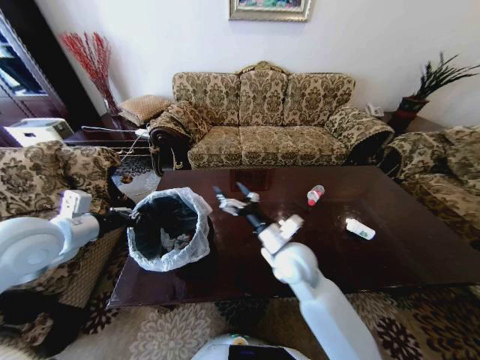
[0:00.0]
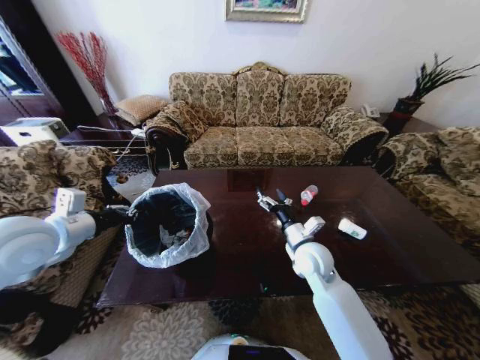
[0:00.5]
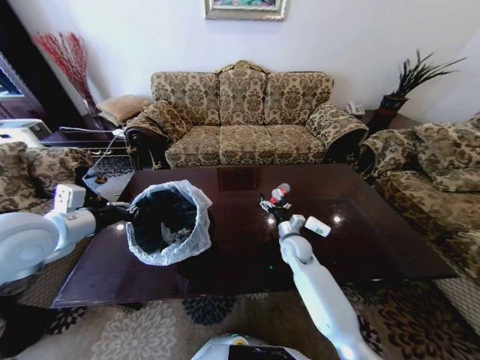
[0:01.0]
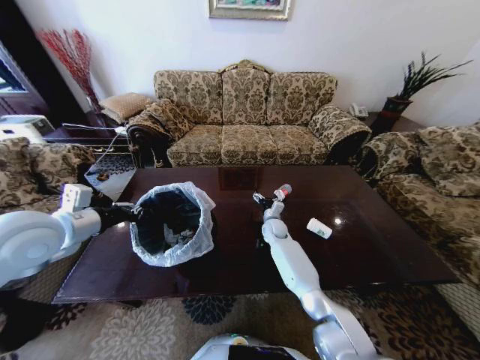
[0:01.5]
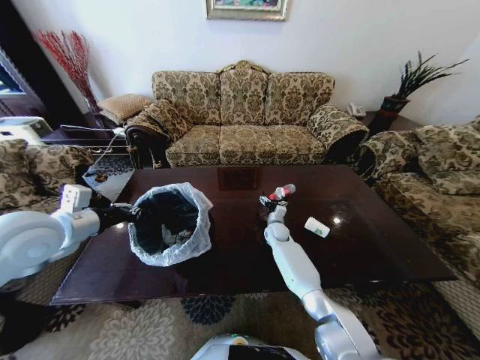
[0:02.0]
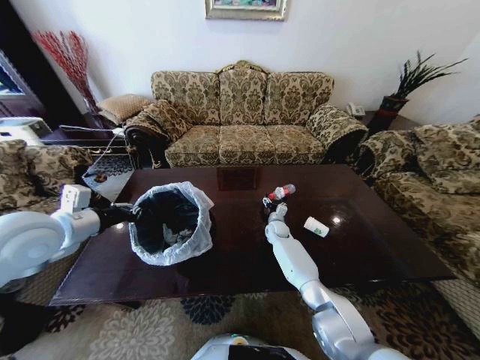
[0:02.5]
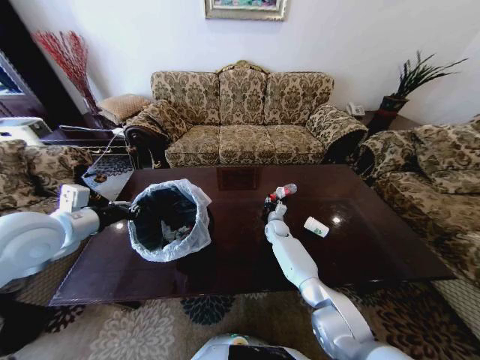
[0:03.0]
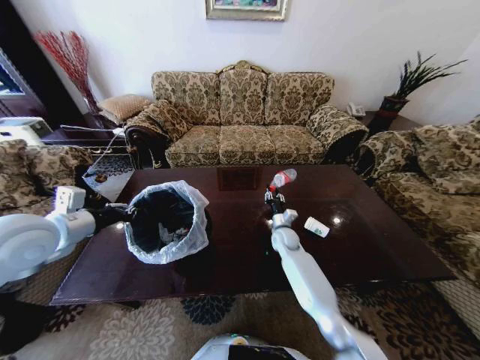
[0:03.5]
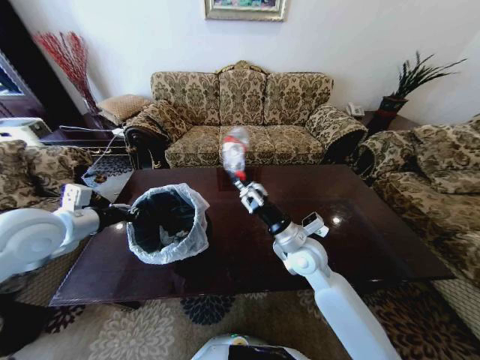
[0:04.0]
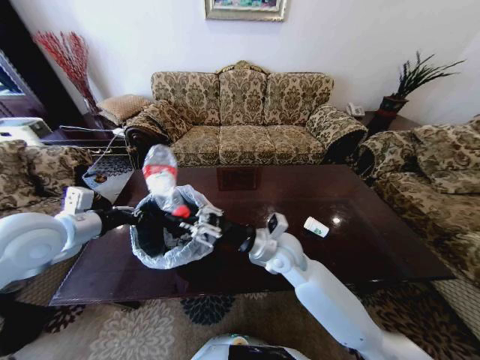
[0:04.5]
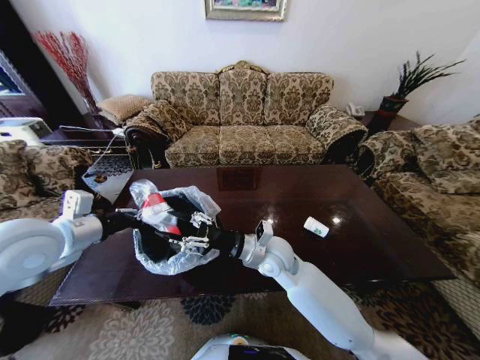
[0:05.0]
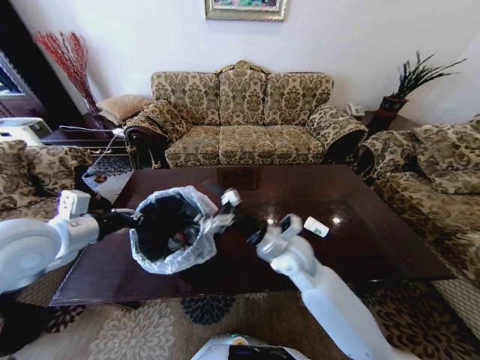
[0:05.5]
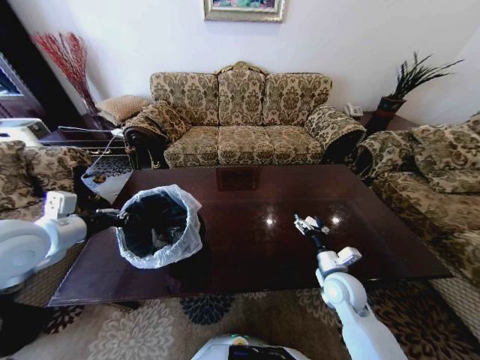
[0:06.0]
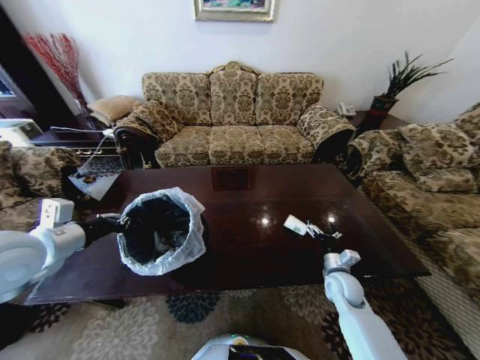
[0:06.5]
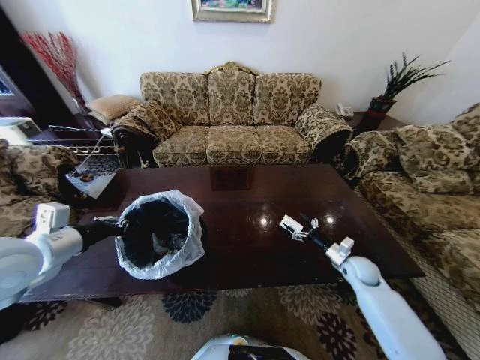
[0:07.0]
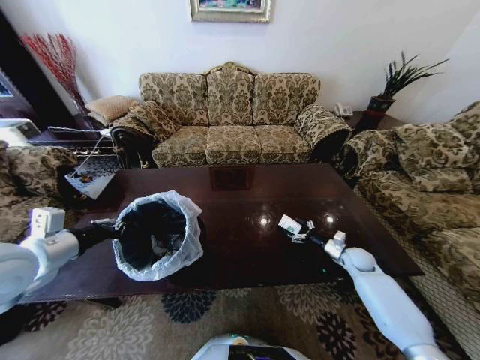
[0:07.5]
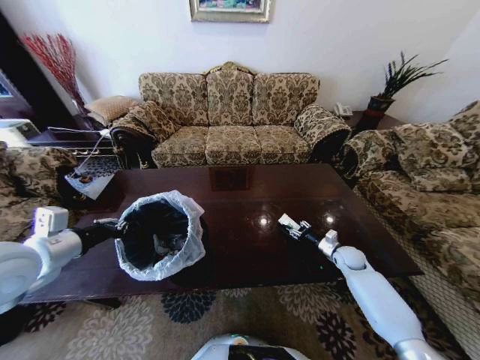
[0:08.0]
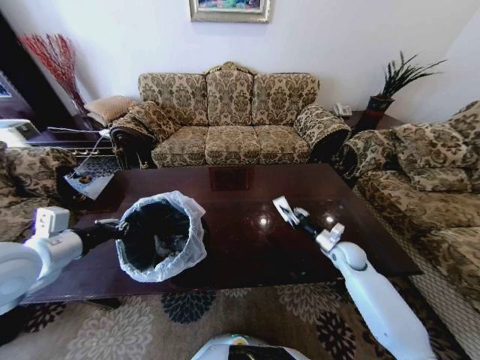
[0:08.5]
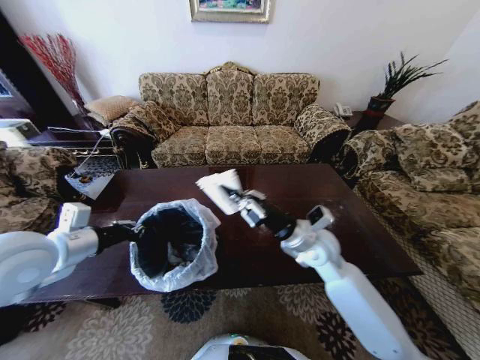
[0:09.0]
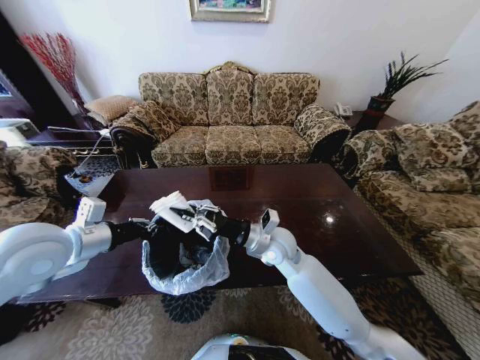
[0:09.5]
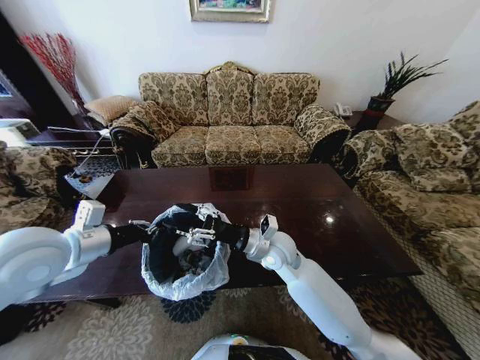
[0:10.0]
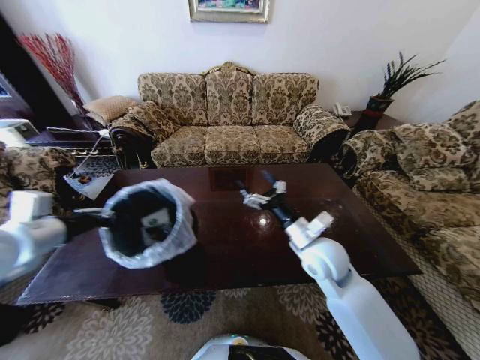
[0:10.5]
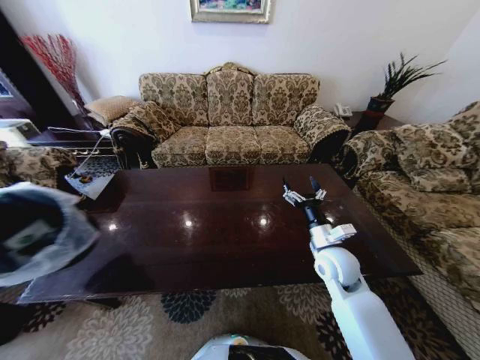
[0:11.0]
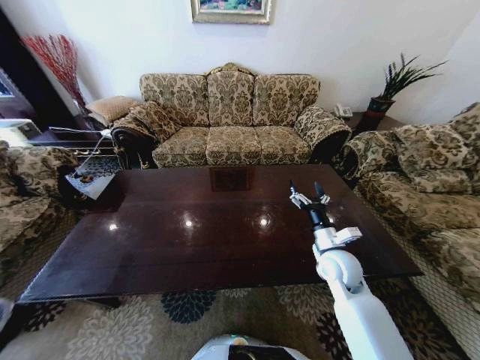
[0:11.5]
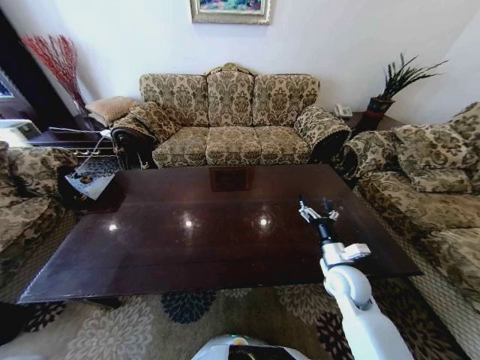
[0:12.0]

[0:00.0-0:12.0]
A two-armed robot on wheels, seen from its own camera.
Task of the whole recording: Move to the front of the table and place the trash on the table into the trash bin.
0:00.0 to 0:02.0: The right gripper goes about 30 cm forward and downward.
0:02.0 to 0:04.0: The right gripper moves backward and upward, some 25 cm, and closes.
0:04.0 to 0:06.0: The right gripper moves to the right and downward, roughly 15 cm, and opens its fingers.
0:06.0 to 0:08.0: The right gripper heads forward, to the right and downward, covering about 20 cm, and closes up.
0:08.0 to 0:10.0: The left gripper ends up about 5 cm from where it was. The right gripper moves to the left and upward, roughly 35 cm, and closes, then reopens.
0:10.0 to 0:12.0: The left gripper is displaced backward, downward and to the left by approximately 50 cm. Meanwhile the right gripper shifts roughly 20 cm to the right, and opens its fingers.

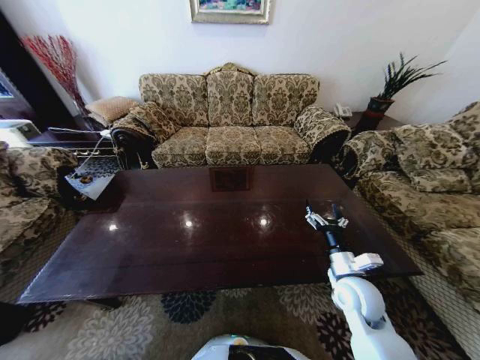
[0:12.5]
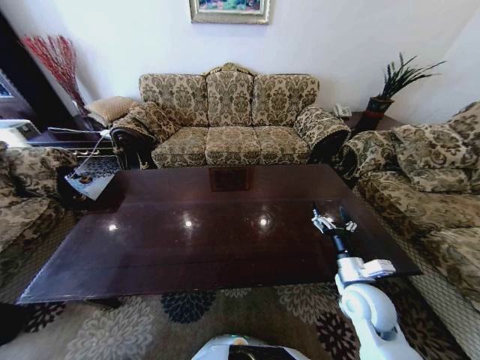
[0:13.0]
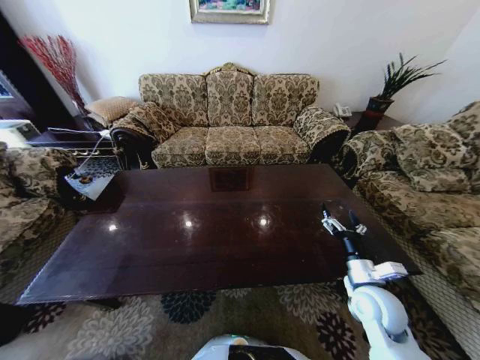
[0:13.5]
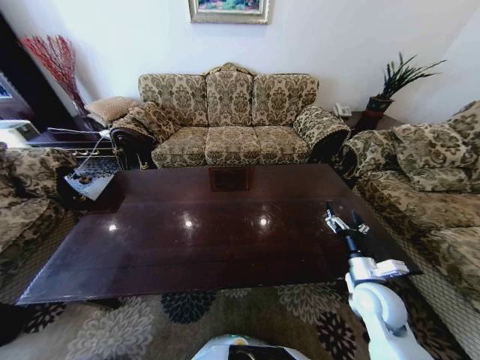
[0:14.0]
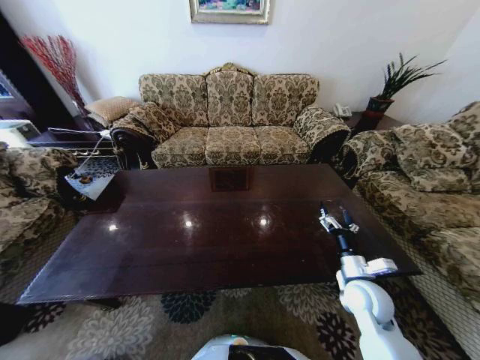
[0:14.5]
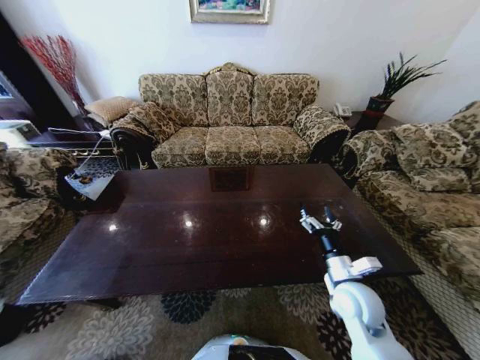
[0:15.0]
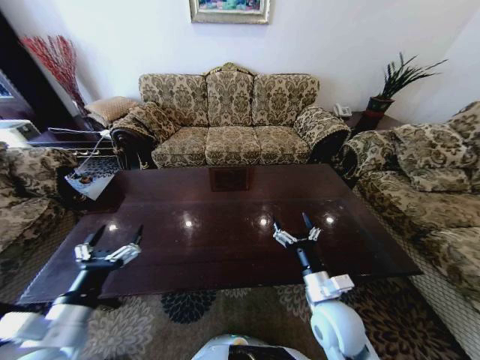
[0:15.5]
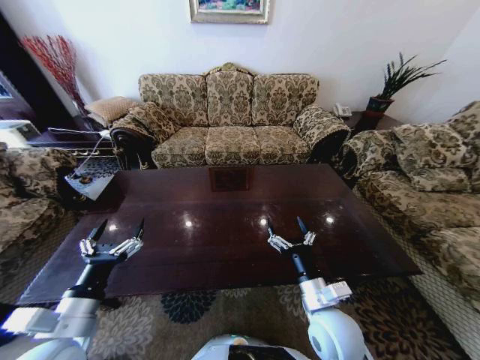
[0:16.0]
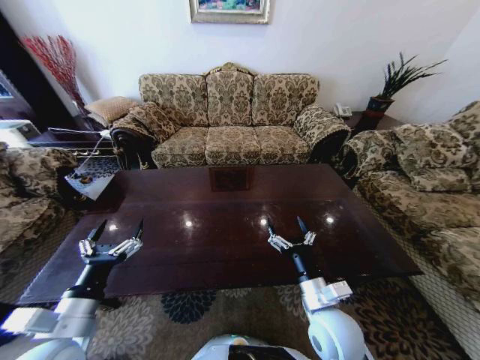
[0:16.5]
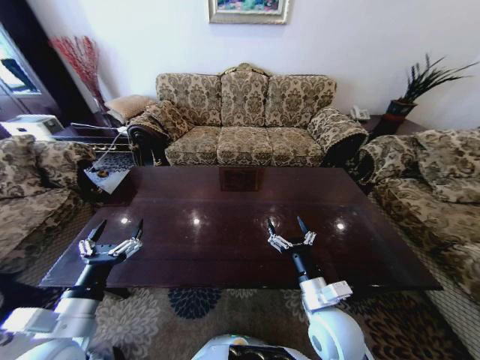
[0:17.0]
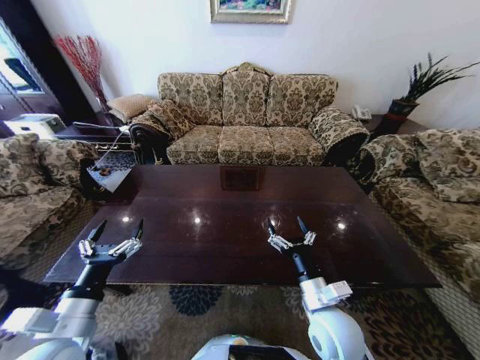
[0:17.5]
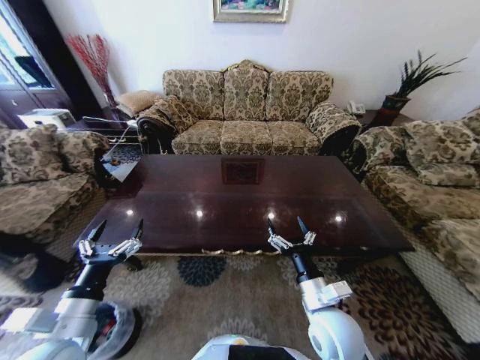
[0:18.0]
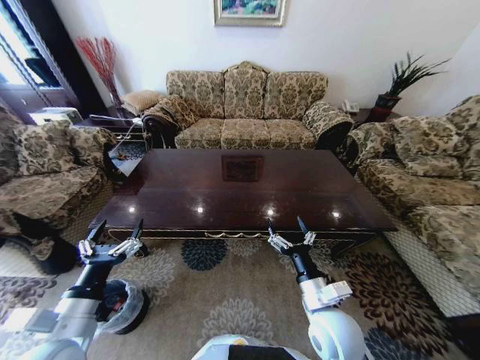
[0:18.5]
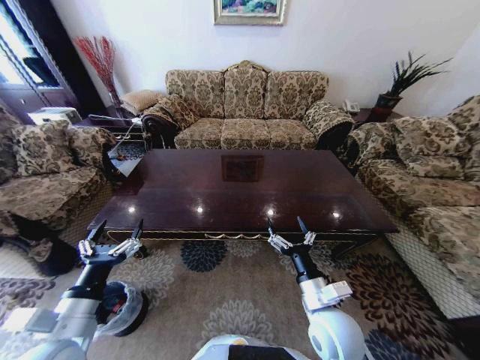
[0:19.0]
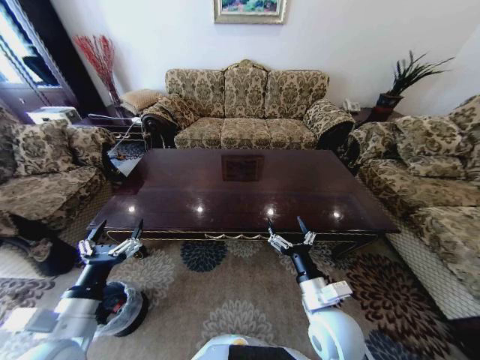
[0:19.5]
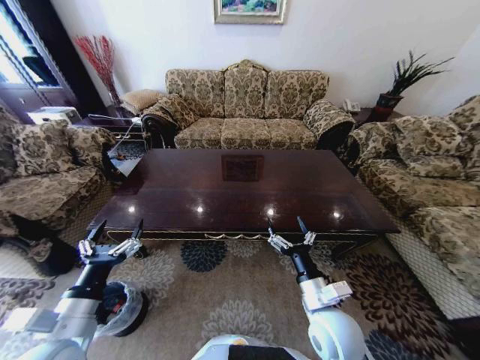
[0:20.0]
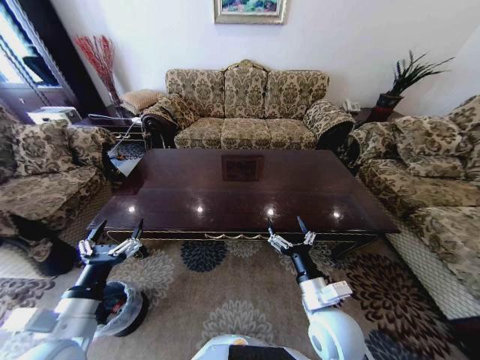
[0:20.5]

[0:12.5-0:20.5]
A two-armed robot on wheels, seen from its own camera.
Task of the whole recording: Move to the front of the table and place the trash on the table into the trash bin.
0:14.5 to 0:16.5: The left gripper heads upward, forward and to the right, covering some 50 cm; the right gripper is displaced to the left and backward by roughly 15 cm.
0:18.5 to 0:20.5: The two grippers keep their place.
